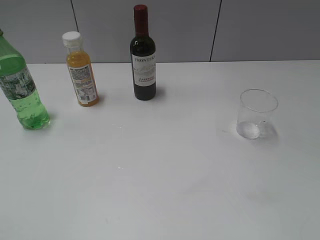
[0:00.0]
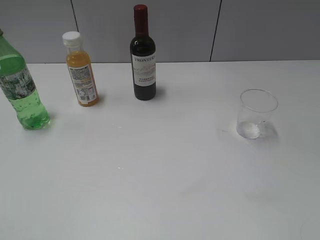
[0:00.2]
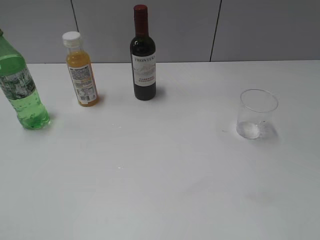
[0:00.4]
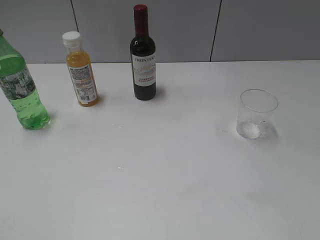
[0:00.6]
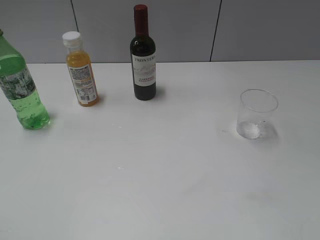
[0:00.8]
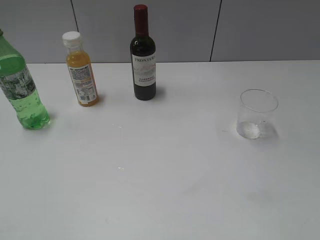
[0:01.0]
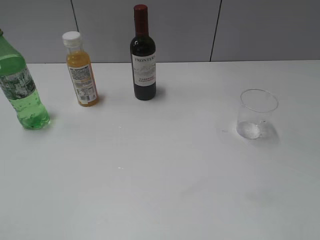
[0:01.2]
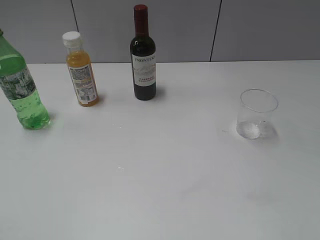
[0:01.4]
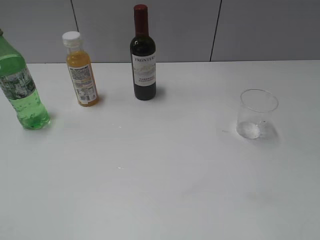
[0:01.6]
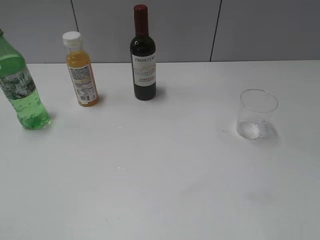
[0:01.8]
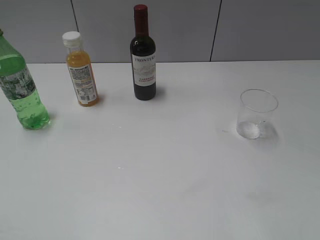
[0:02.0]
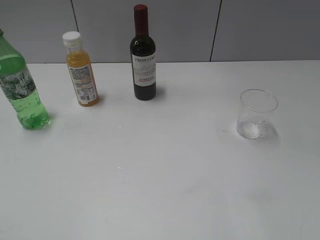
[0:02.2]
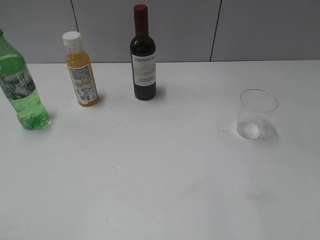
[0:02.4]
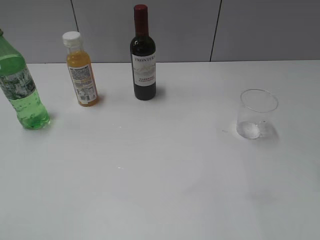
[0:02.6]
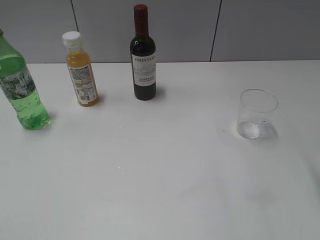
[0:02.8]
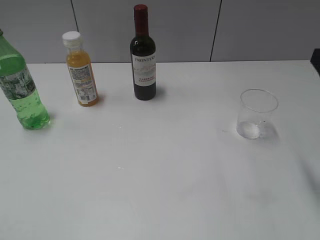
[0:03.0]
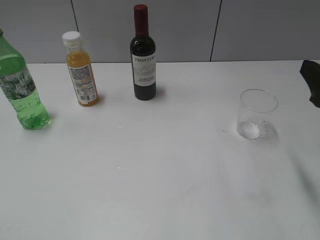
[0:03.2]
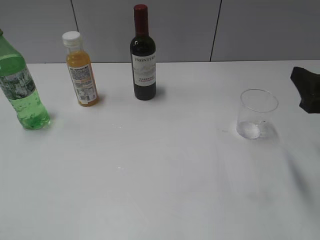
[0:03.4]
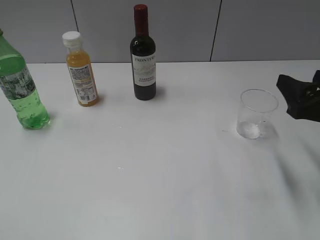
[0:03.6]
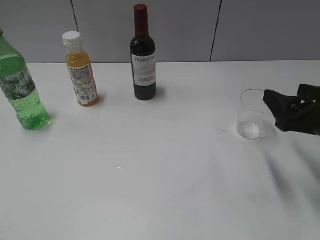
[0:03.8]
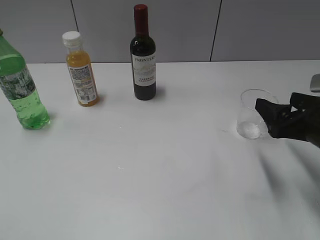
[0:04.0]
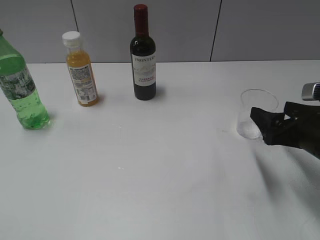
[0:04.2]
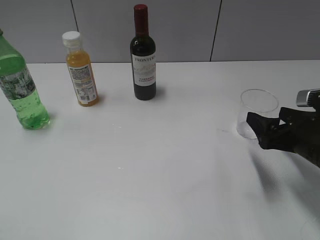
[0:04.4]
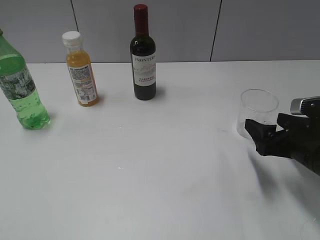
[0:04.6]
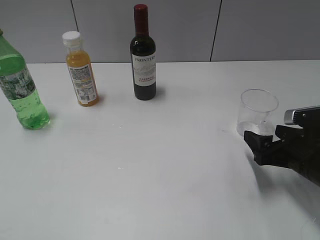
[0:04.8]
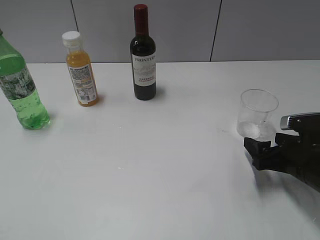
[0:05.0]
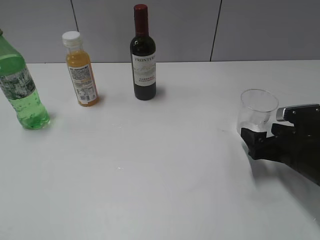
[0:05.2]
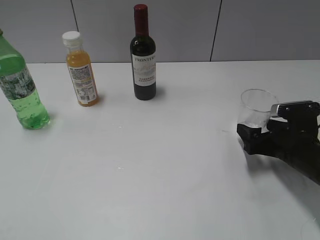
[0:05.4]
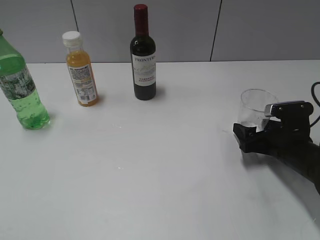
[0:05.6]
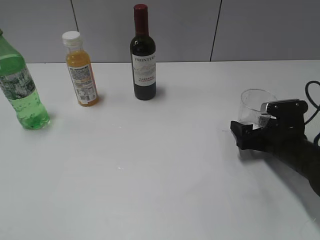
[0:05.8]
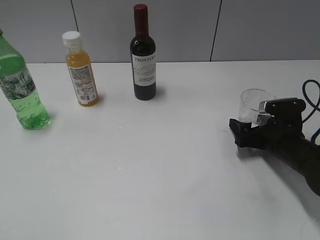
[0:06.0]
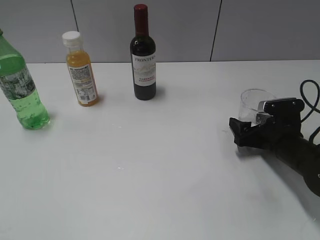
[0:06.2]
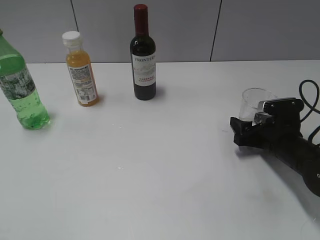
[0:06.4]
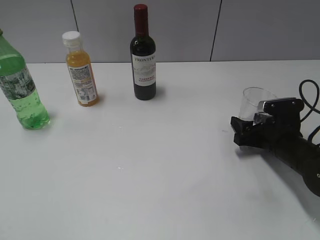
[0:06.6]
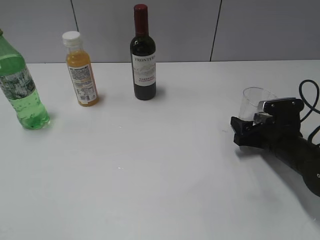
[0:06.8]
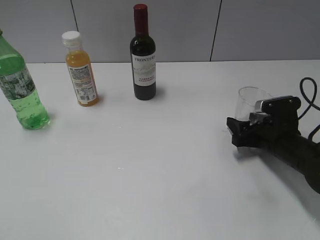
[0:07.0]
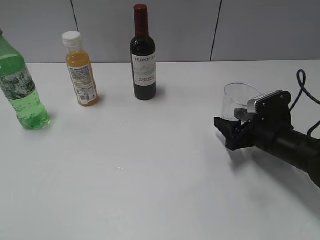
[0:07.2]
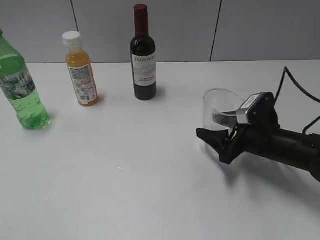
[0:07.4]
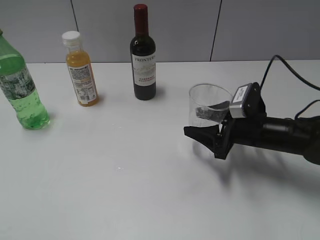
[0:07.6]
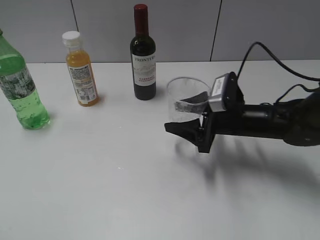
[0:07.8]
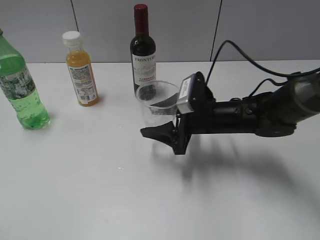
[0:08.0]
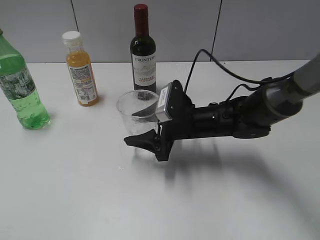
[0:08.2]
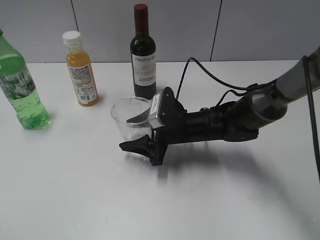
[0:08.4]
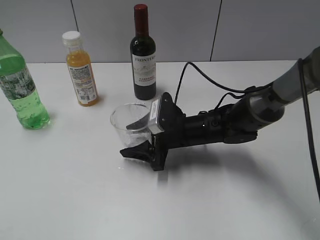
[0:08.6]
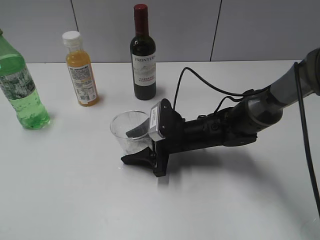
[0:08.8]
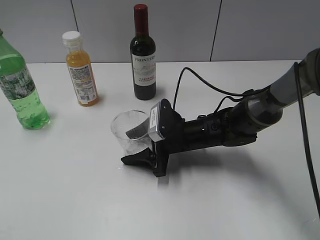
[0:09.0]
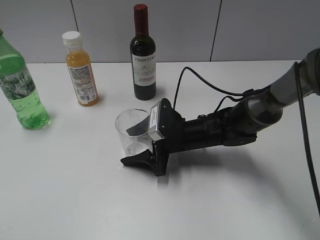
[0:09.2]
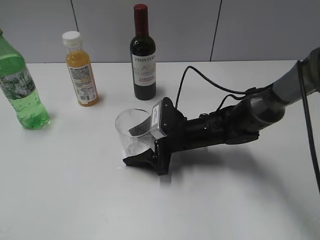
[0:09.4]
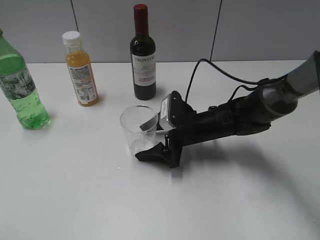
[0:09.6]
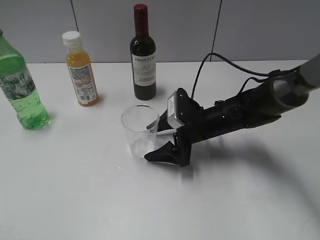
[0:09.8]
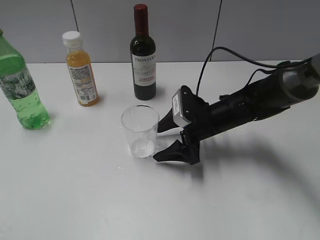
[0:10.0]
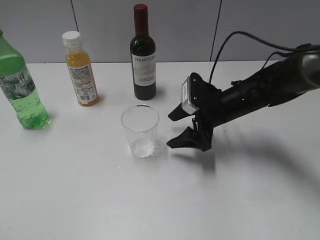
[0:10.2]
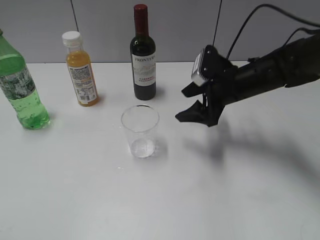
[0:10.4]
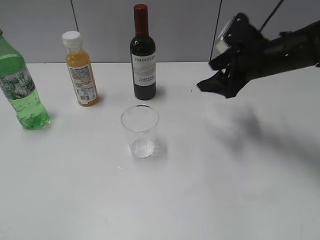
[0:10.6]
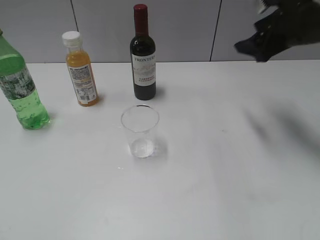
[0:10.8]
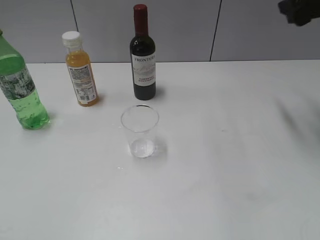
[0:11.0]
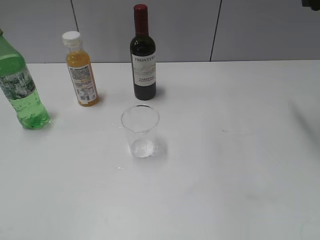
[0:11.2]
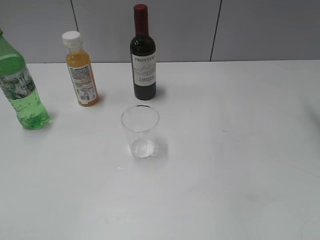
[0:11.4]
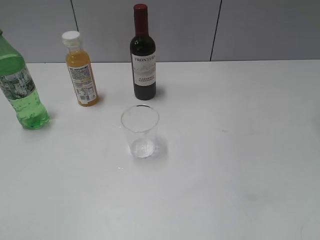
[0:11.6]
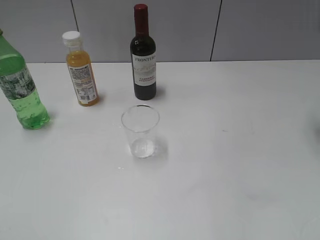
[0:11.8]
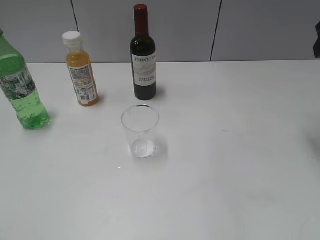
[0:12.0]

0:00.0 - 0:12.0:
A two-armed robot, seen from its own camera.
Step, 0:01.0 - 0:06.6: Grasp the transparent cup with right gripper.
Step, 0:06.8 - 0:10.0: Place the transparent cup on the table with right gripper.
0:03.0 - 0:04.4: The right gripper travels downward by roughly 15 cm, and opens up.
0:04.4 - 0:06.0: The right gripper goes about 10 cm downward and forward.
0:06.0 - 0:07.6: The right gripper travels to the left by approximately 5 cm, and closes its fingers.
0:07.6 - 0:09.0: The right gripper goes some 15 cm to the left.
0:09.0 - 0:10.4: The right gripper goes about 15 cm upward and to the right, and opens its fingers.
0:10.4 - 0:12.0: The right gripper goes approximately 25 cm upward and to the right.

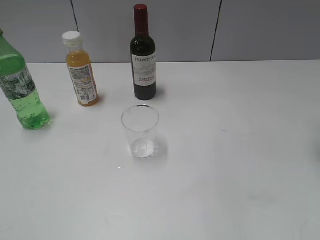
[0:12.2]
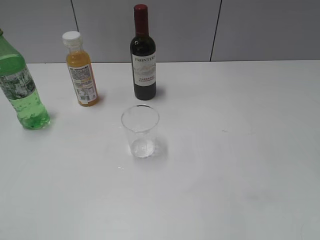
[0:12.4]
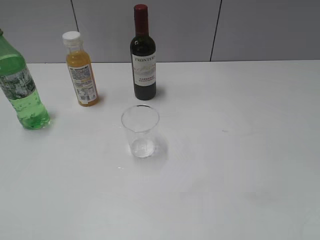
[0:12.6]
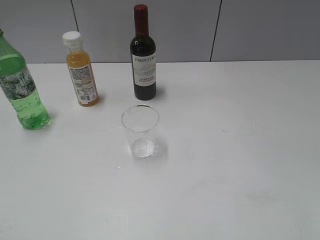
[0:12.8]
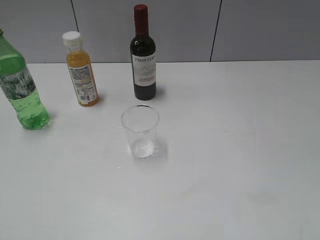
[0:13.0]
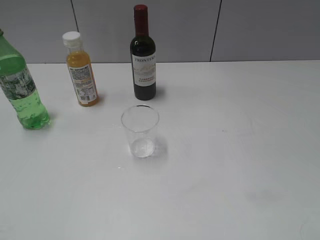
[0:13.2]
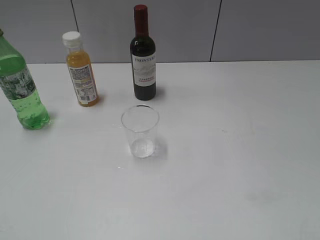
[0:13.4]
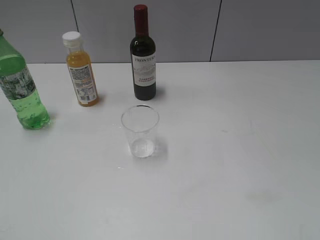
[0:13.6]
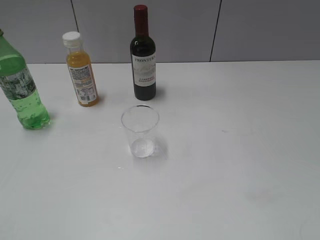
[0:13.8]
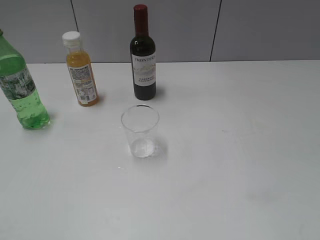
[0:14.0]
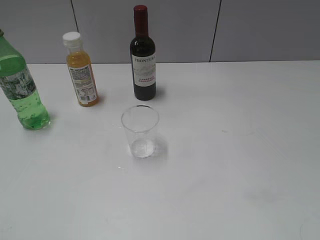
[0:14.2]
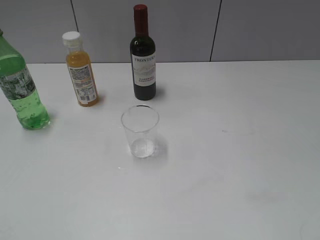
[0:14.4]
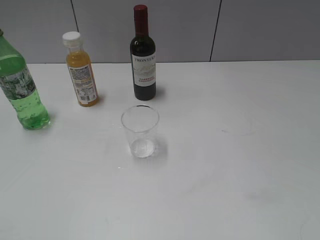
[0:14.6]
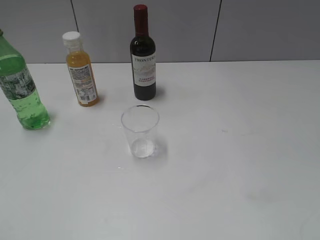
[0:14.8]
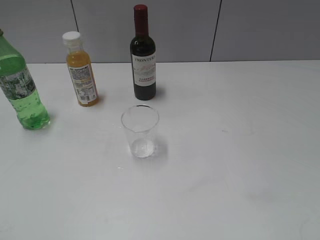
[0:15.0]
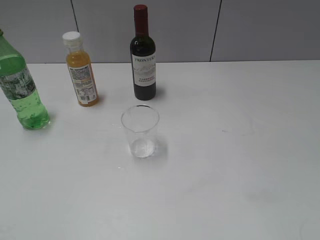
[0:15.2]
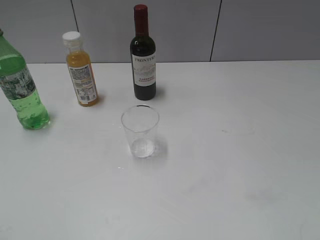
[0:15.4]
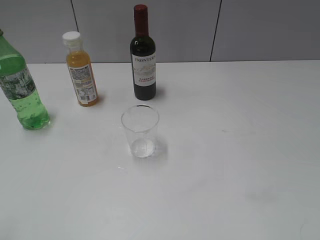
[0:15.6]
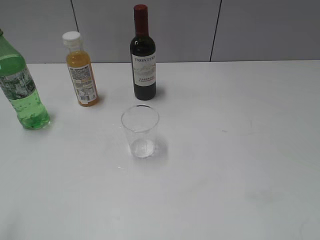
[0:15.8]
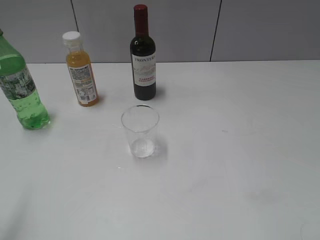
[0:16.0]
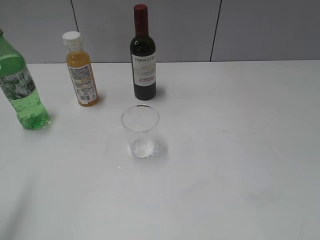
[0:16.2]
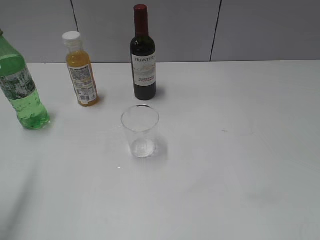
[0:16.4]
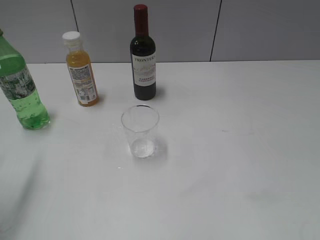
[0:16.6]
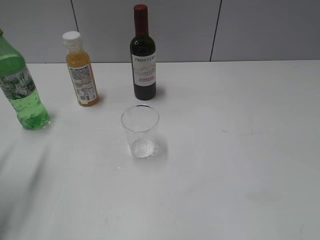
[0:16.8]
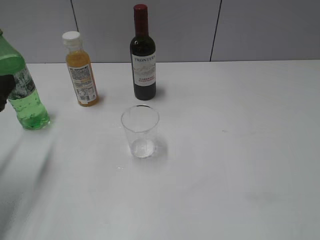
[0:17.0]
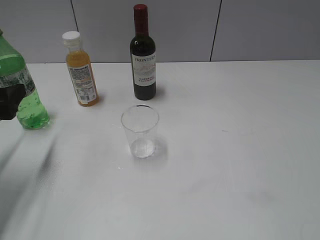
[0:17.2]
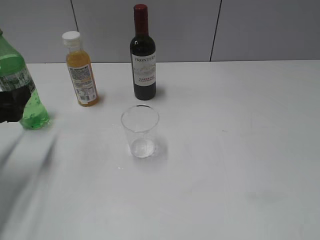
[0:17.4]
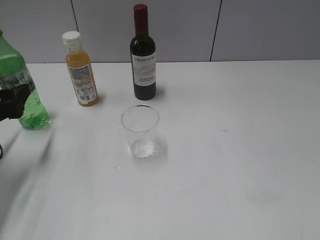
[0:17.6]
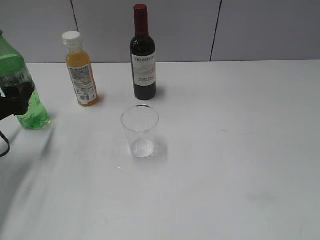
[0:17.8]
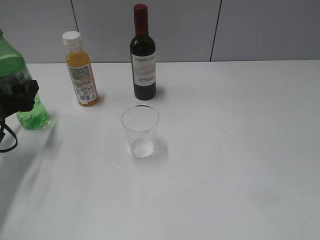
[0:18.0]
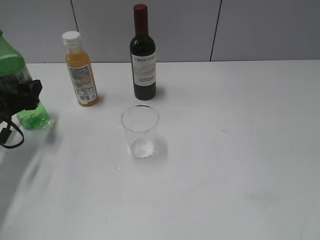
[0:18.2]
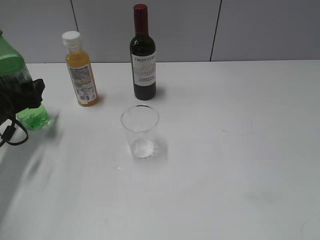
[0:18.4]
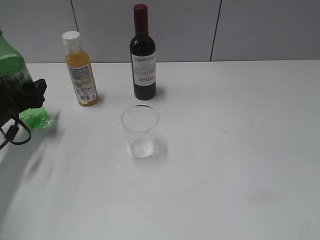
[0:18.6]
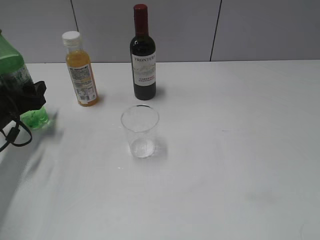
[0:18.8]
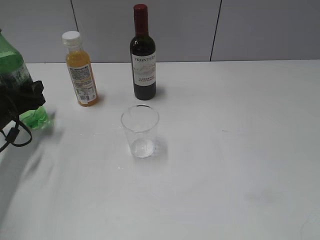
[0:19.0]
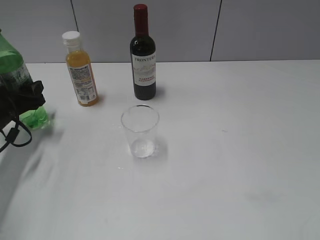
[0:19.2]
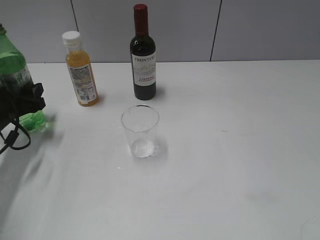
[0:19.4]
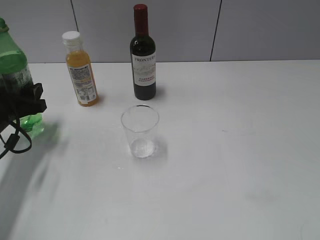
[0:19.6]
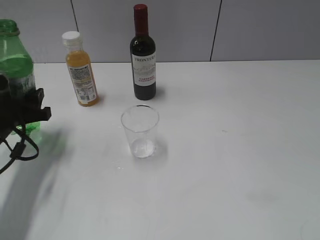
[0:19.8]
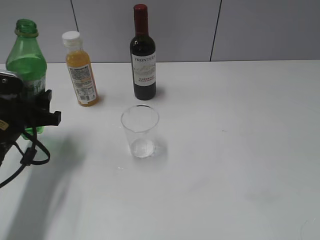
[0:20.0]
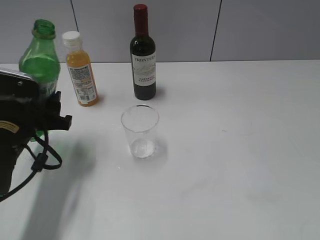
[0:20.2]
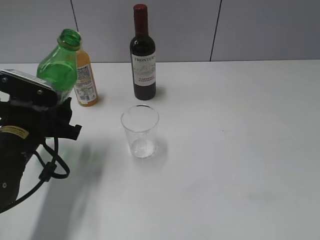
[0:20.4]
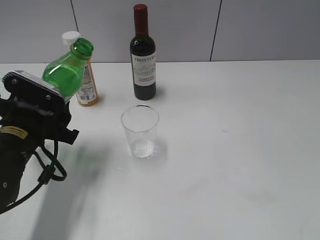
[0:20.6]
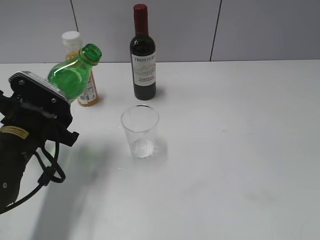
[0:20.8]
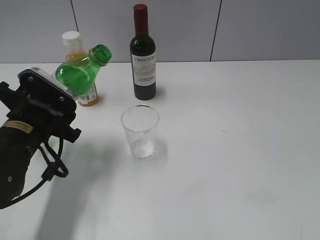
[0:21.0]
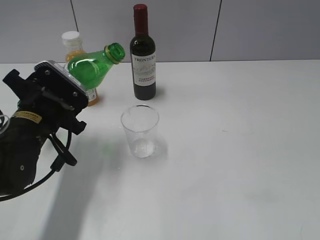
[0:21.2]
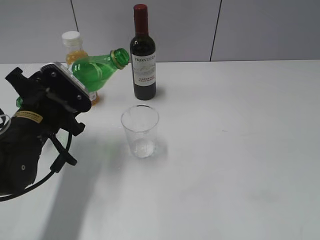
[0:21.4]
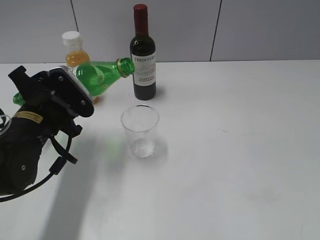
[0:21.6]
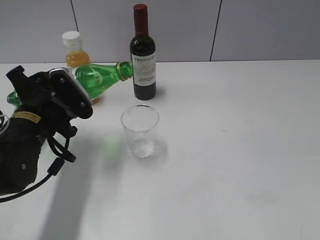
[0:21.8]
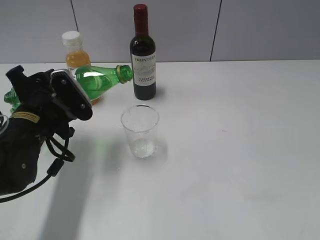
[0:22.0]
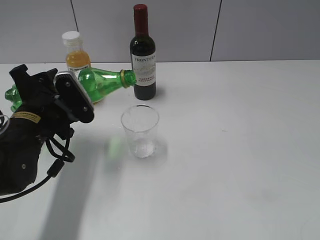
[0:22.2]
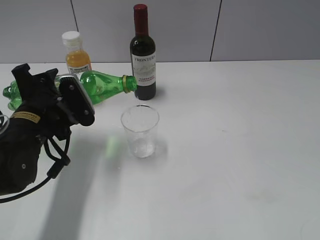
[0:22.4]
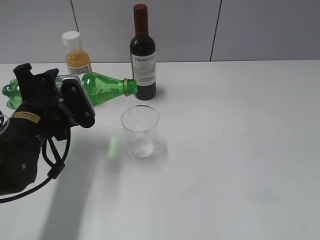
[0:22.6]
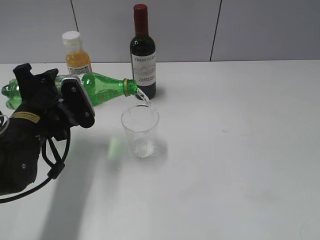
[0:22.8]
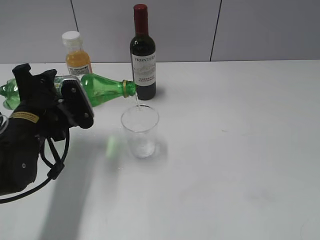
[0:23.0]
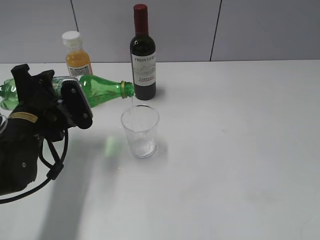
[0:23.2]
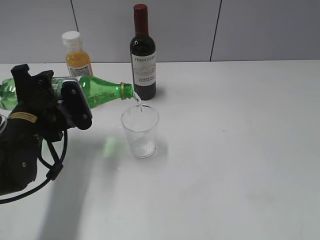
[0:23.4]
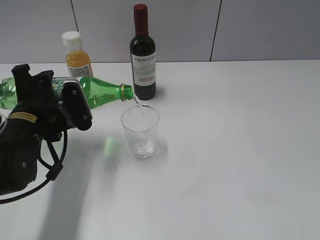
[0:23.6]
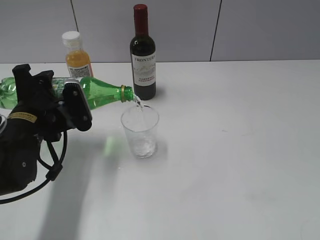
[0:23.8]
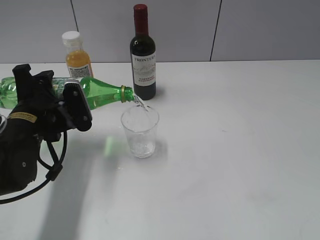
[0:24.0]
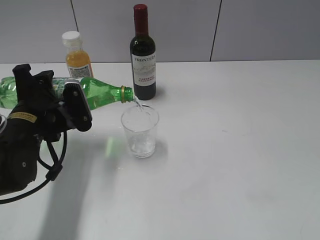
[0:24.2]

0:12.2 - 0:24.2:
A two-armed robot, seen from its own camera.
Step, 0:12.2 - 0:19.2: Grasp the bottle with sprite with left gripper.
0:15.2 - 0:16.6: The left gripper goes approximately 20 cm forward.
0:16.6 - 0:18.2: The left gripper moves downward and forward, roughly 20 cm.
0:18.2 - 0:19.8: The left gripper closes its fingers.
0:19.8 - 0:21.2: The left gripper heads to the right, covering roughly 10 cm.
0:22.6 - 0:24.2: The grippers move only a little.
